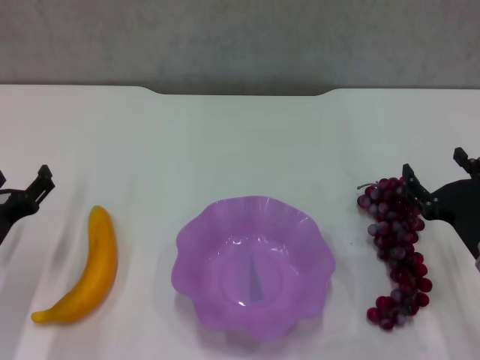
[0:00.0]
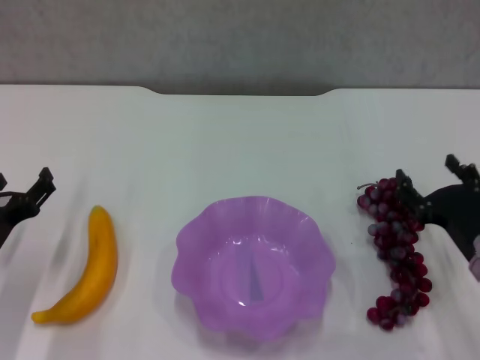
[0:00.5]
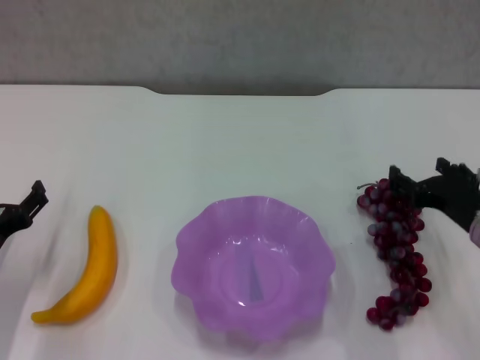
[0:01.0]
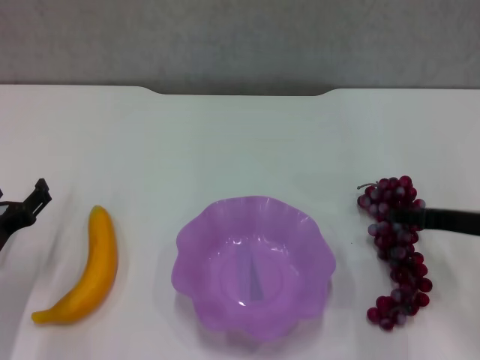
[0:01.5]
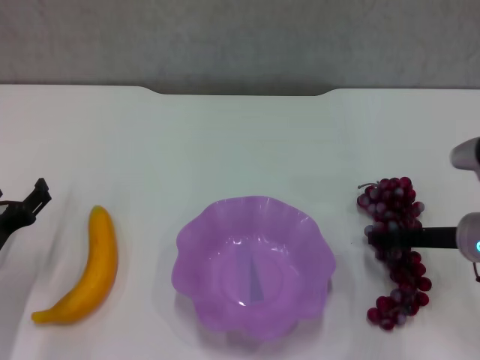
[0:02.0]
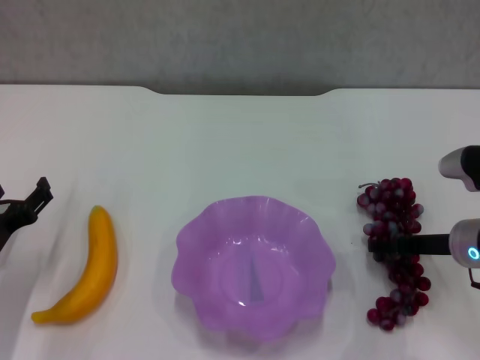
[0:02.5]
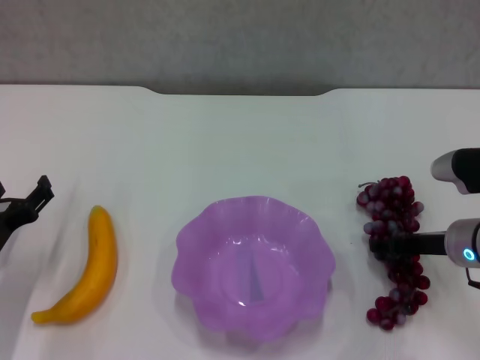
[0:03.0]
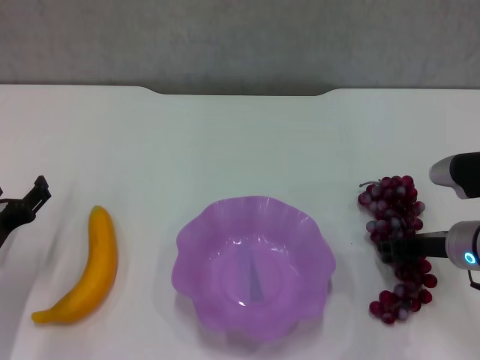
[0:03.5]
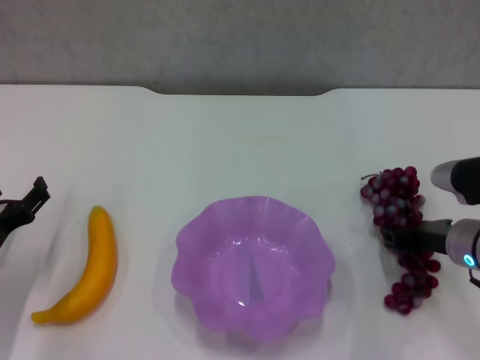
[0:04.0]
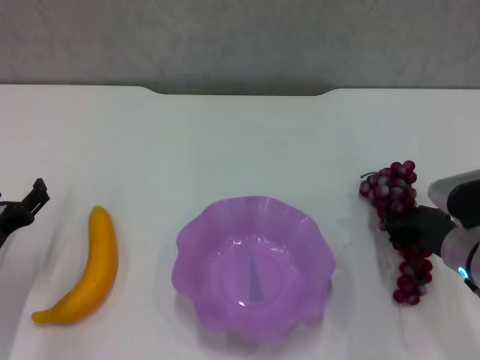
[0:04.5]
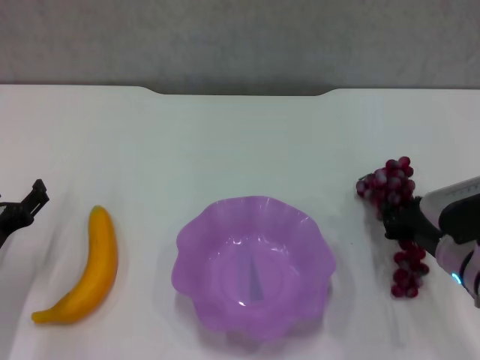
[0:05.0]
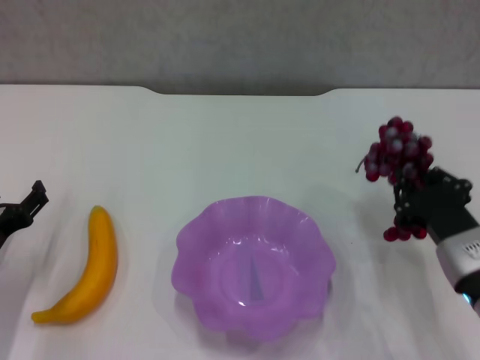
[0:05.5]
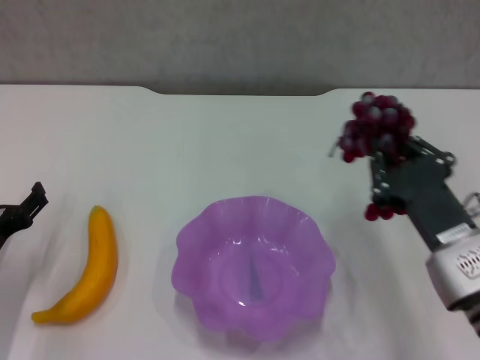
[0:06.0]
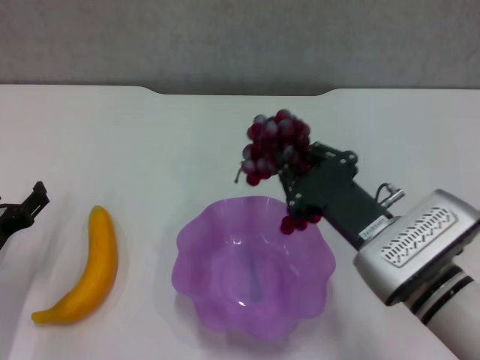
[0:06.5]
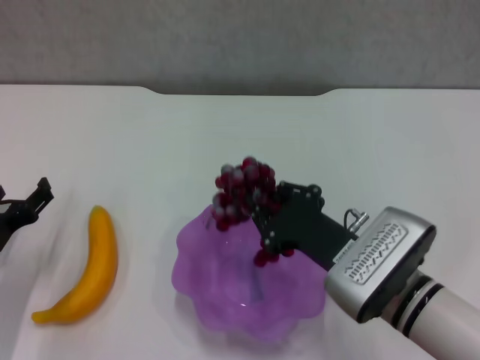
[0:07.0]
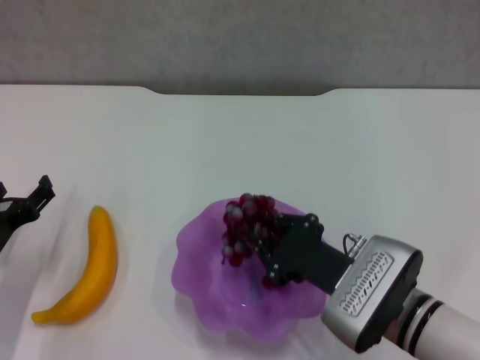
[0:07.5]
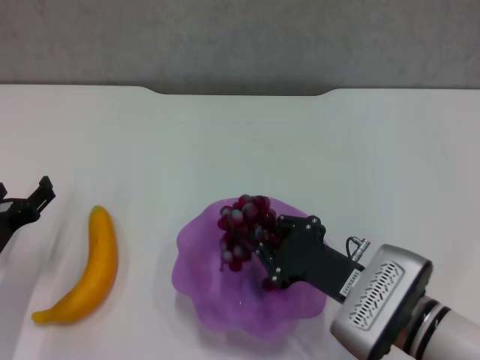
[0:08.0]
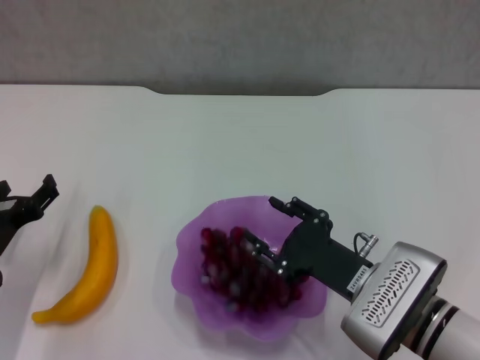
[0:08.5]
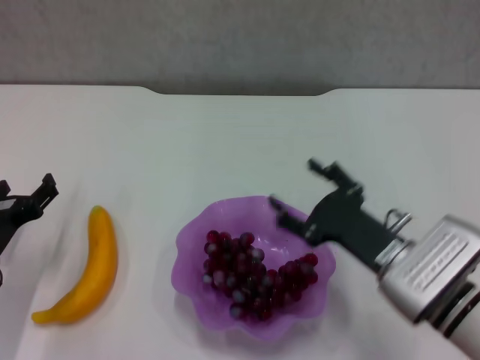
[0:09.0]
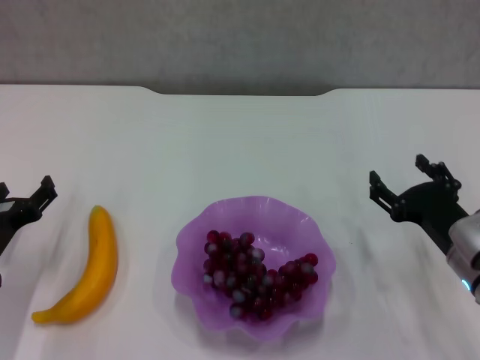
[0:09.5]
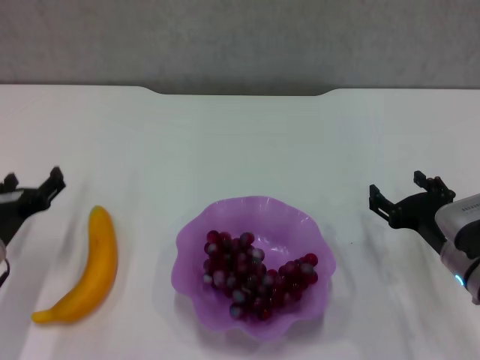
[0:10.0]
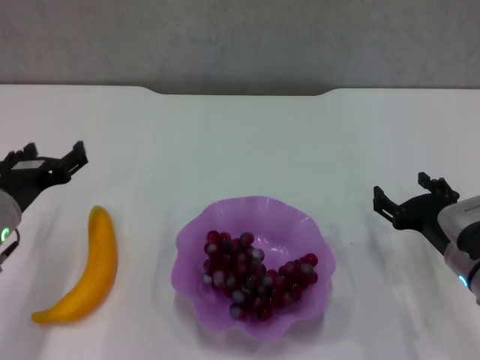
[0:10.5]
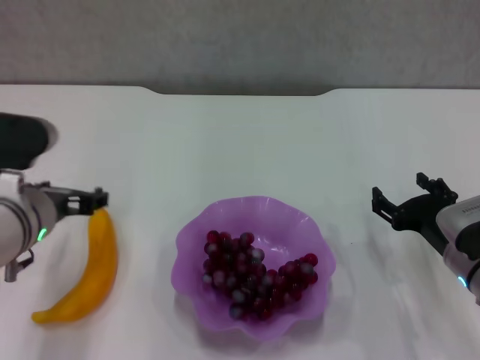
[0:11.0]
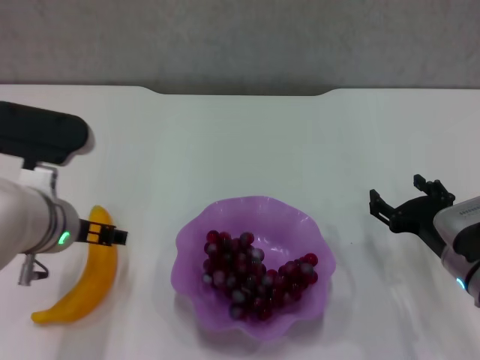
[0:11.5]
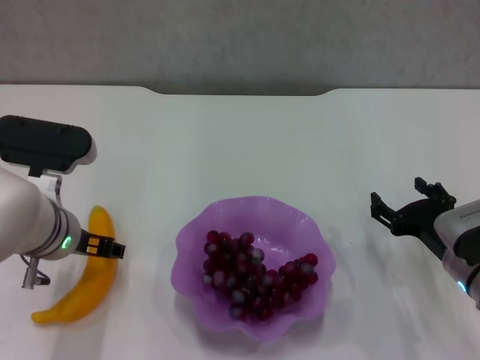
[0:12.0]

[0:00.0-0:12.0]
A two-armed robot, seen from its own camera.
Step, 0:00.0 to 0:03.5: Grasp the grape with right gripper.
Step, 0:04.0 to 0:08.5: Place the grape in the purple plate with right gripper.
0:00.0 to 0:02.0: The right gripper moves forward, about 5 cm.
0:02.0 to 0:04.0: The right gripper closes its fingers.
0:04.0 to 0:06.0: The right gripper travels backward and to the left by about 10 cm.
0:06.0 to 0:08.0: The right gripper moves to the left, approximately 5 cm.
0:08.0 to 0:10.0: The right gripper is displaced to the right by about 10 cm, and opens up.
0:10.0 to 0:12.0: The left gripper is displaced to the right and upward by some 15 cm.

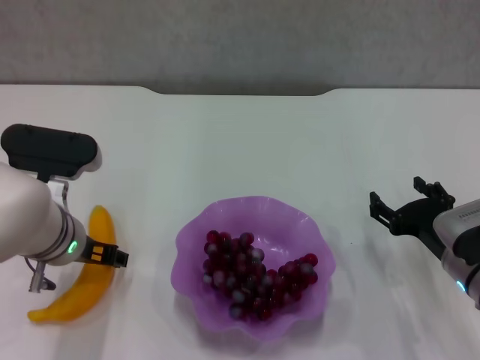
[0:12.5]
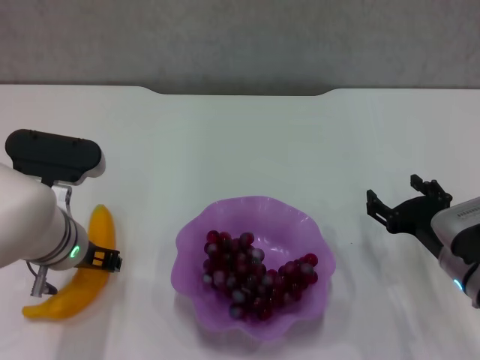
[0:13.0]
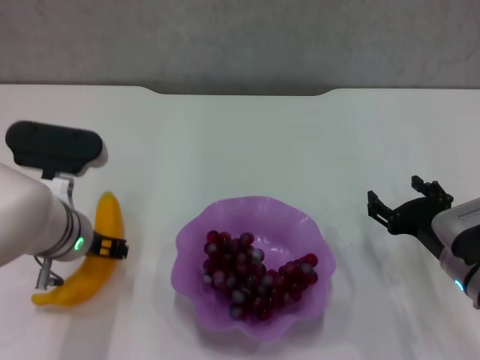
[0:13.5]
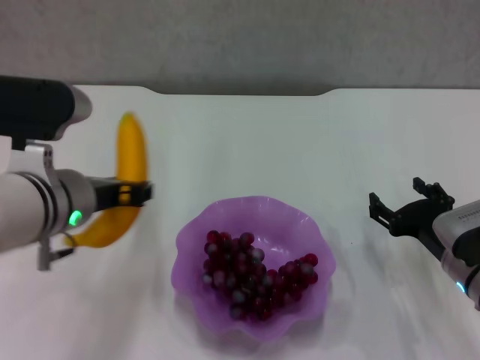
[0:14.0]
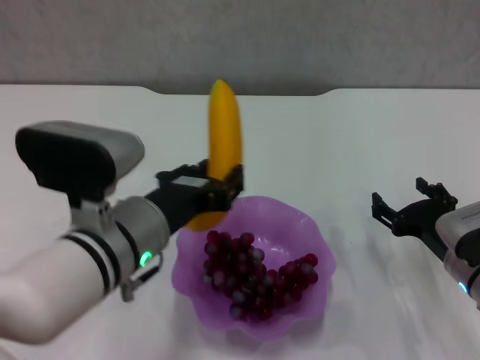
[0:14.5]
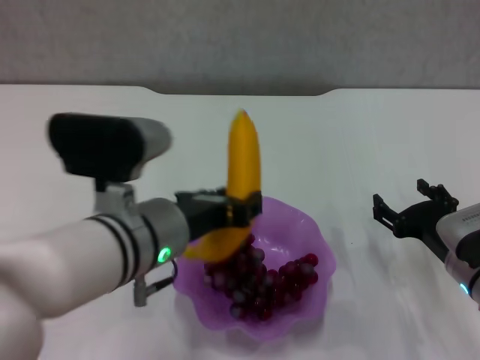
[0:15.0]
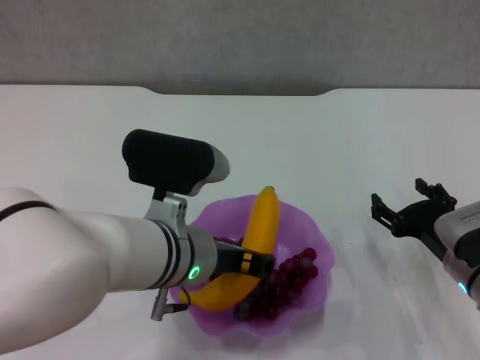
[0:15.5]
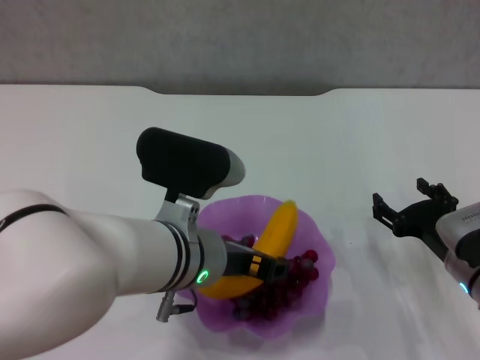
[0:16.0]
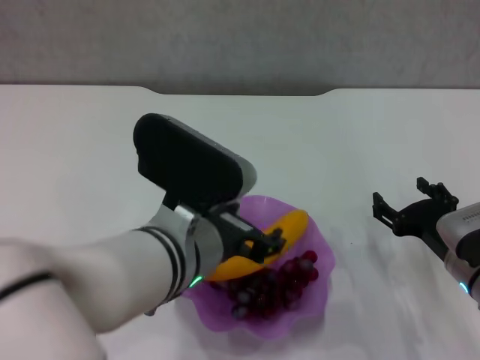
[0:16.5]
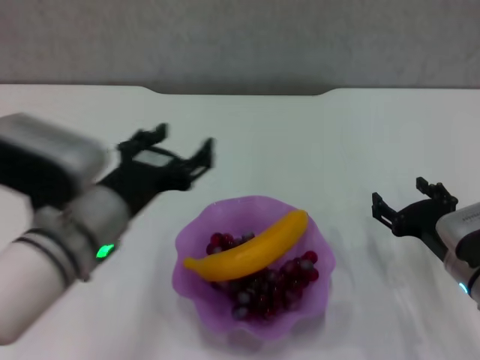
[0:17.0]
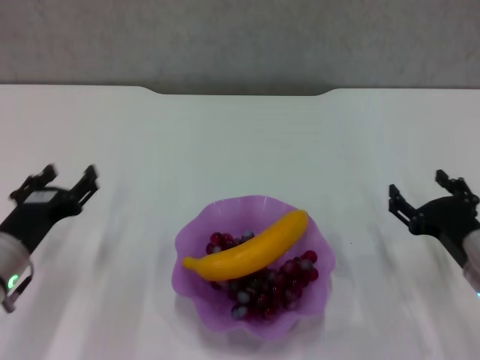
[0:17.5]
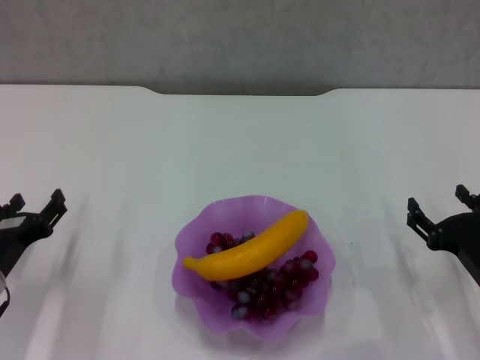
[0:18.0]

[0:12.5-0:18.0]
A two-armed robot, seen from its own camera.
Step, 0:13.5 to 0:16.5: Place the banana in the purple plate with left gripper.
0:12.5 to 0:14.5: The left gripper heads to the right and backward, covering some 10 cm, and closes up.
0:14.5 to 0:16.0: The left gripper moves to the right, about 5 cm.
0:16.0 to 0:18.0: The left gripper moves to the left and downward, about 25 cm.
